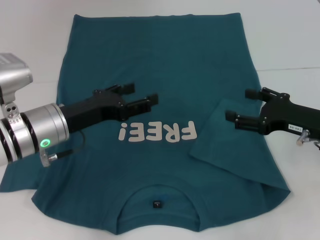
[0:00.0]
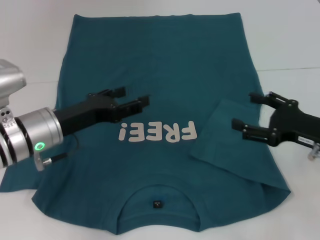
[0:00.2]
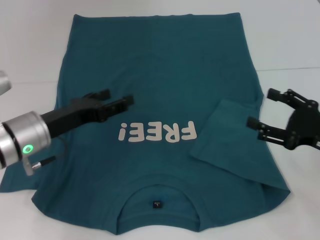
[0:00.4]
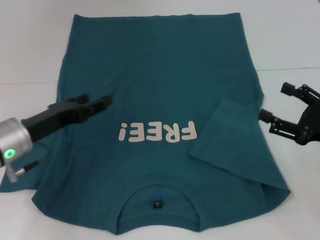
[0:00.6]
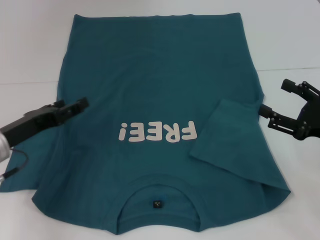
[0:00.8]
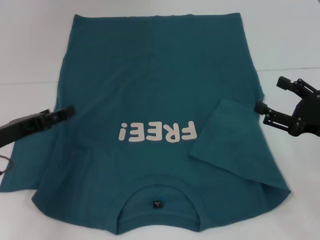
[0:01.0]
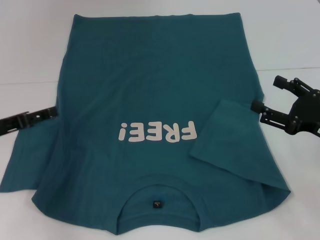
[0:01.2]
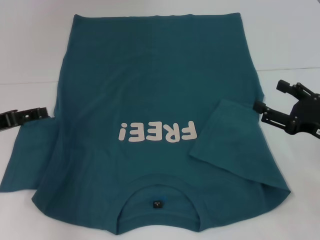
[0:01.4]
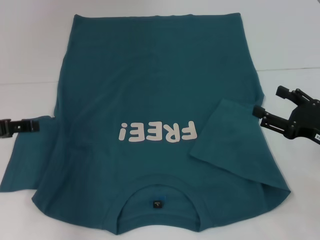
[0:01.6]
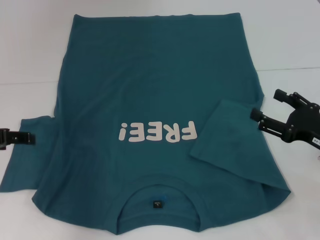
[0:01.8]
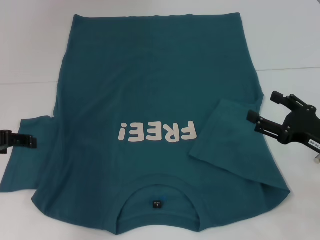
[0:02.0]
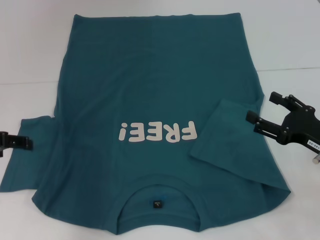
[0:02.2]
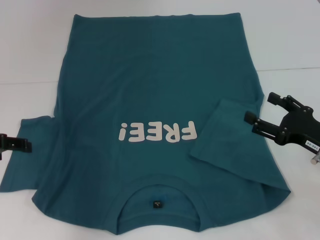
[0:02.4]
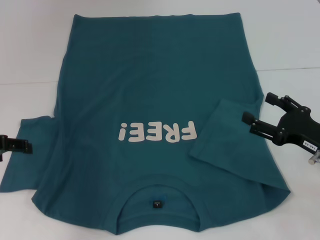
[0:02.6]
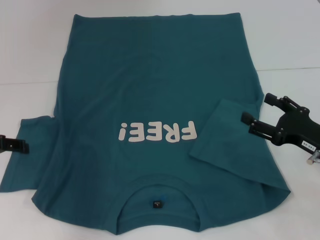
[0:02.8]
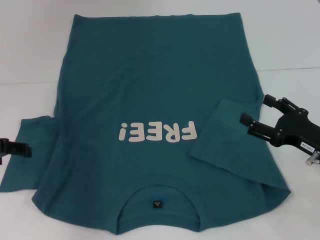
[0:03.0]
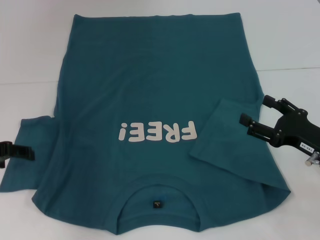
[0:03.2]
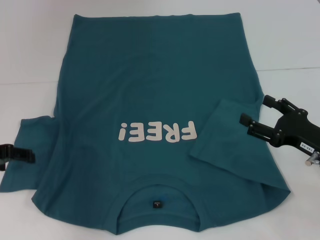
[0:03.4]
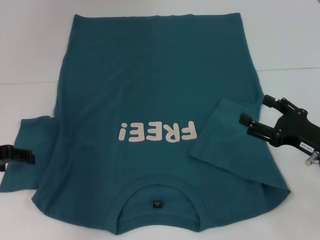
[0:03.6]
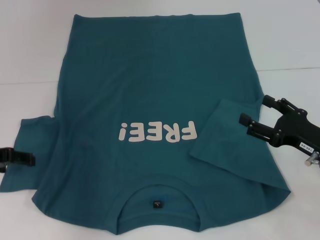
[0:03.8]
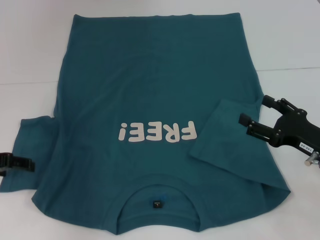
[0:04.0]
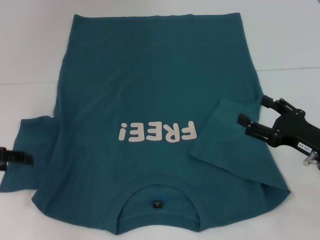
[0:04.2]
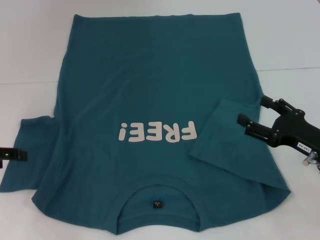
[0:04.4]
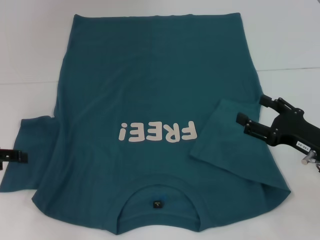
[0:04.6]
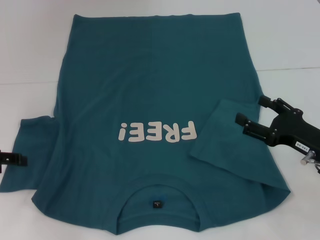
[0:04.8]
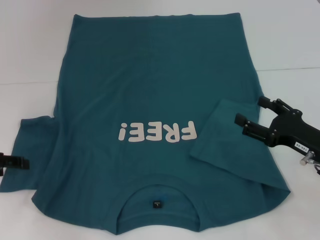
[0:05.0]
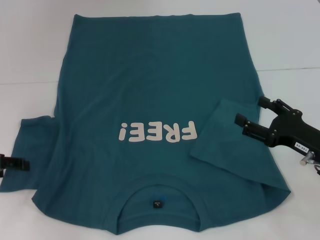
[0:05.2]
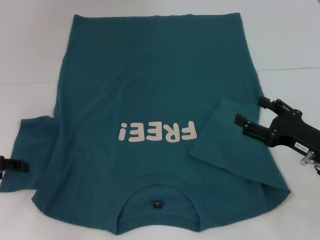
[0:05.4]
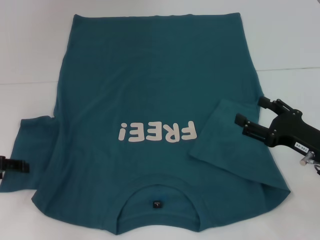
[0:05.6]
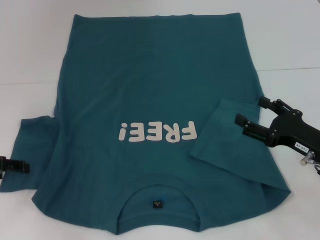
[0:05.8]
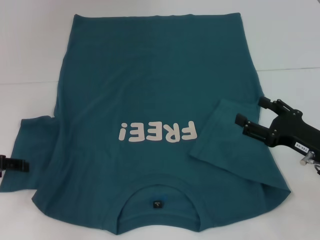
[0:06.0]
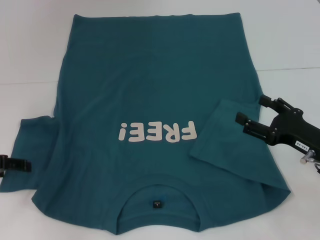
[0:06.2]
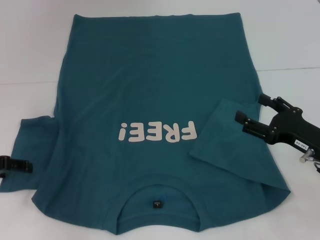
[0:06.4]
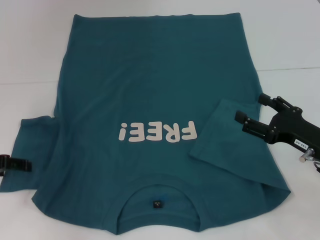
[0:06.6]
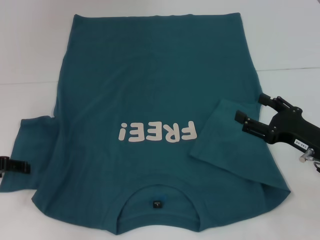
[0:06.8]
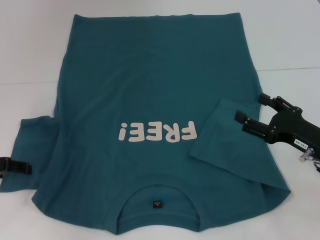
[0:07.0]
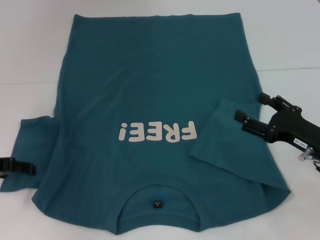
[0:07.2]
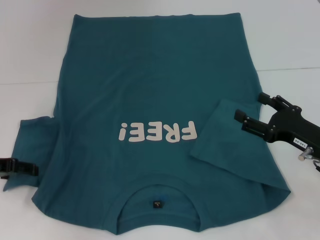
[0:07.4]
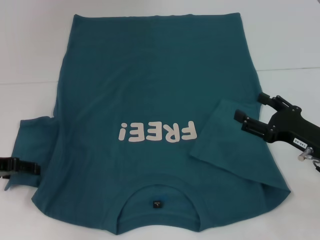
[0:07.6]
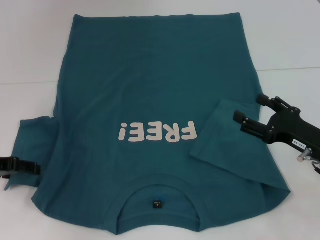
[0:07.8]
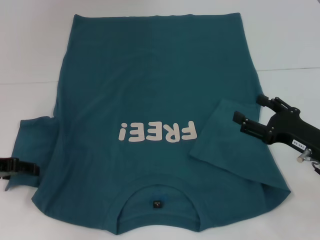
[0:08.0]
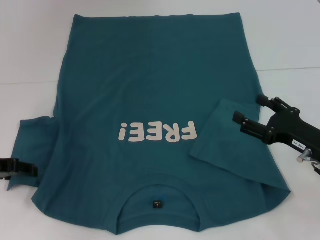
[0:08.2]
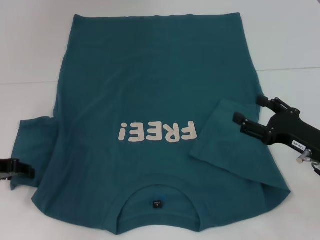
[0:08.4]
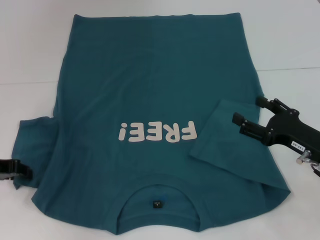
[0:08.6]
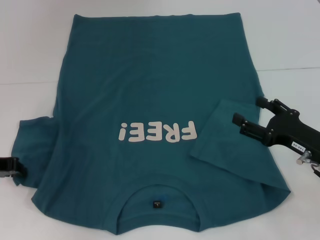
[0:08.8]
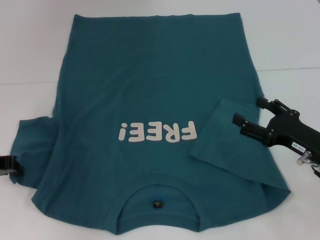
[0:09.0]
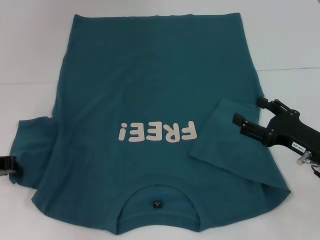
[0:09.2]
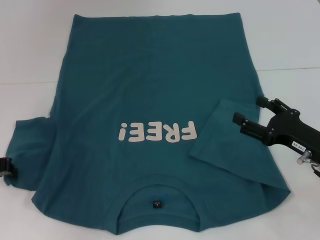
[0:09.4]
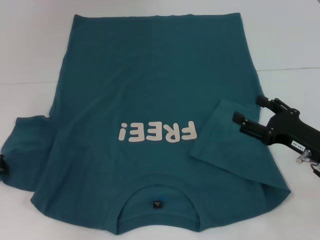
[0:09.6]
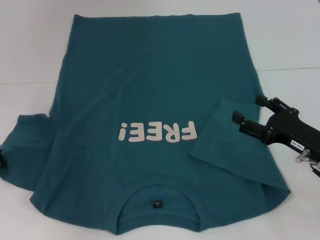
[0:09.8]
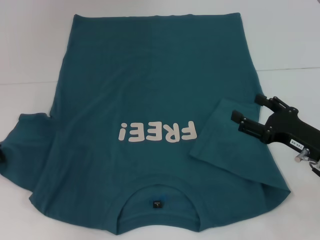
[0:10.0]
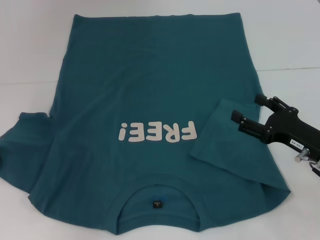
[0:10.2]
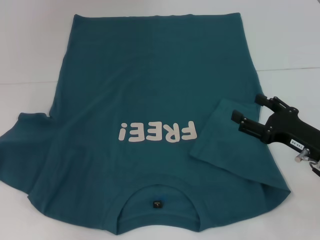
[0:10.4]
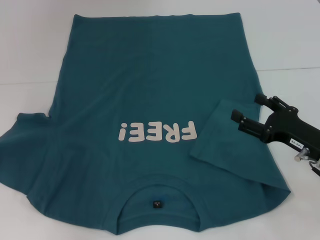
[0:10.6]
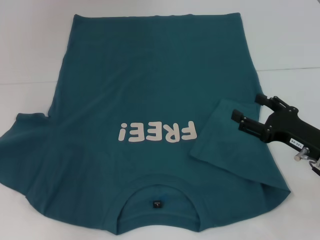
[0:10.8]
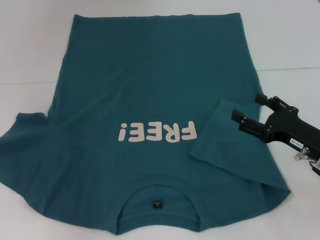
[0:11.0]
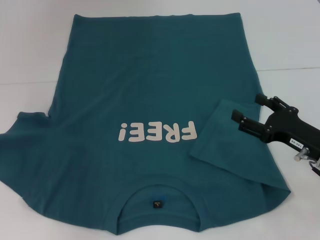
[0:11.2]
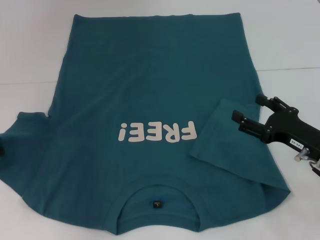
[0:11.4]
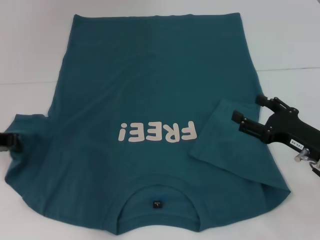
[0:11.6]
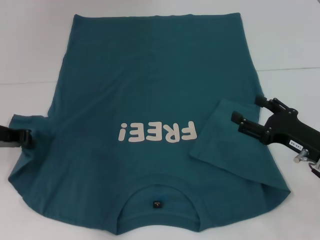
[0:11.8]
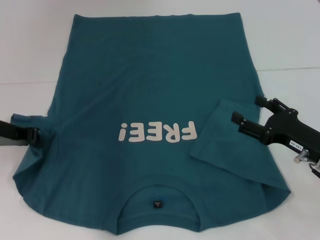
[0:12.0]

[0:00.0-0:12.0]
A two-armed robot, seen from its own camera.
0:00.0 to 0:01.6: The left gripper is displaced to the left by approximately 15 cm. The right gripper changes place by roughly 5 cm.
0:01.6 to 0:07.6: There are only small adjustments of the grippers.
0:07.6 to 0:09.0: The left gripper closes its fingers.
0:09.0 to 0:10.4: The grippers move only a little.
0:10.4 to 0:12.0: The left gripper shifts some 5 cm to the right.

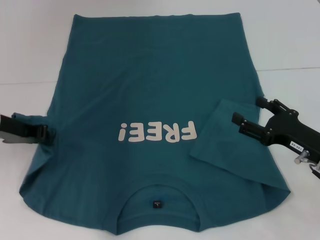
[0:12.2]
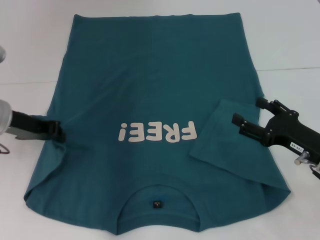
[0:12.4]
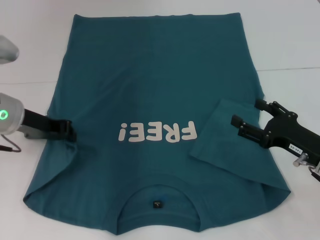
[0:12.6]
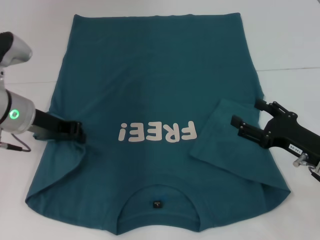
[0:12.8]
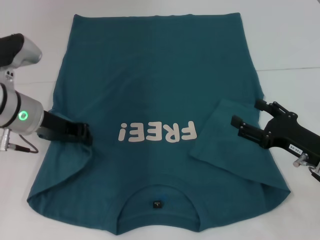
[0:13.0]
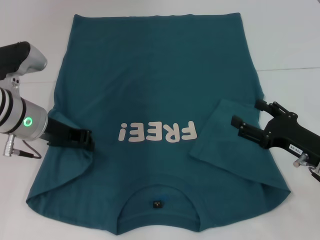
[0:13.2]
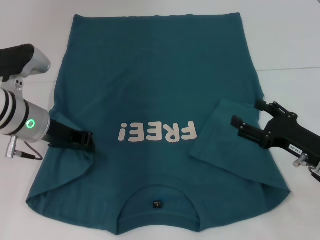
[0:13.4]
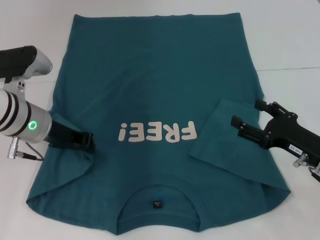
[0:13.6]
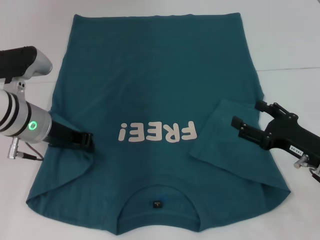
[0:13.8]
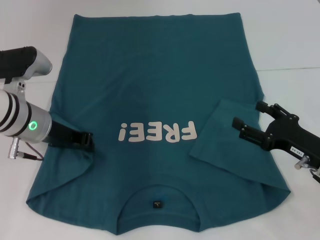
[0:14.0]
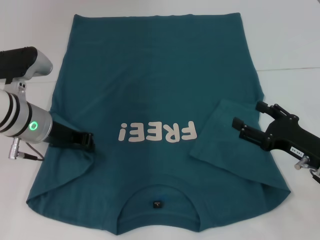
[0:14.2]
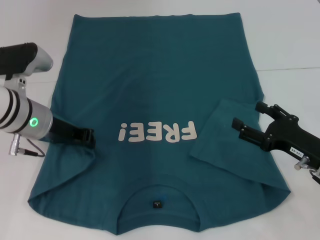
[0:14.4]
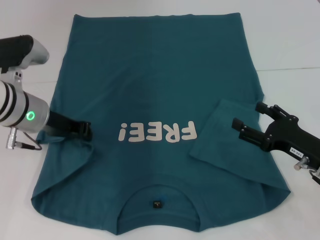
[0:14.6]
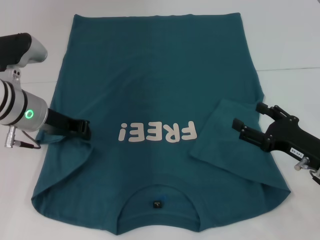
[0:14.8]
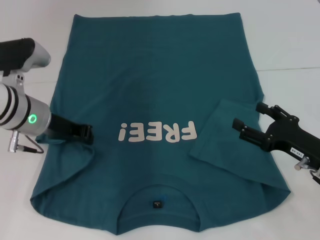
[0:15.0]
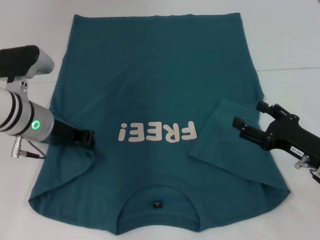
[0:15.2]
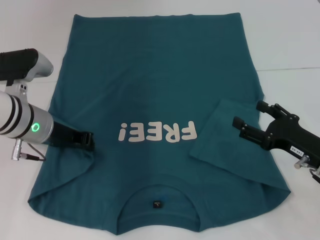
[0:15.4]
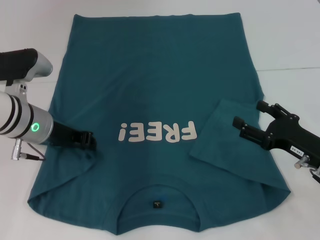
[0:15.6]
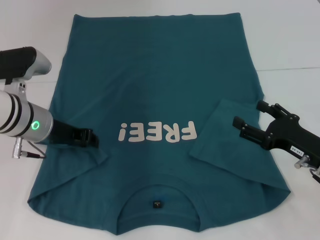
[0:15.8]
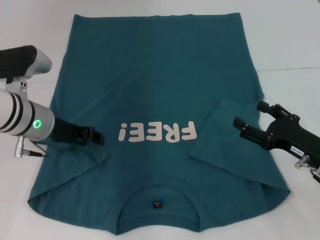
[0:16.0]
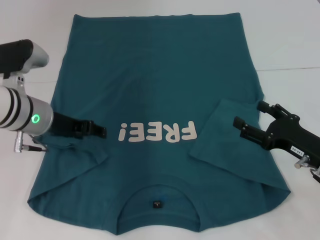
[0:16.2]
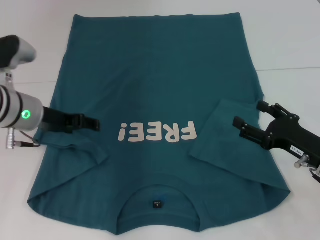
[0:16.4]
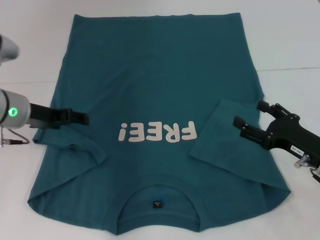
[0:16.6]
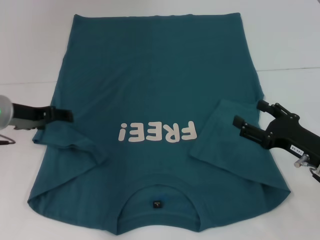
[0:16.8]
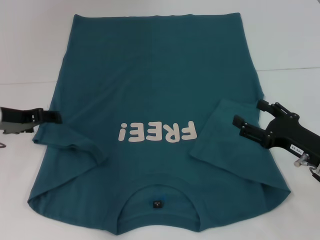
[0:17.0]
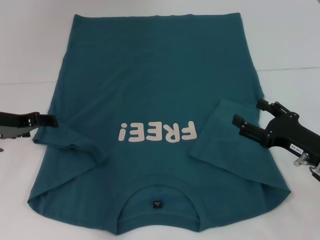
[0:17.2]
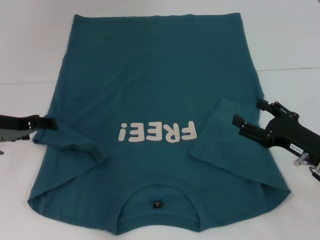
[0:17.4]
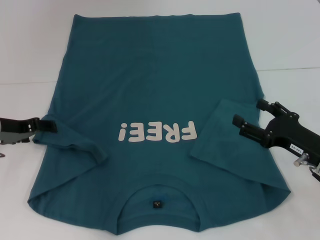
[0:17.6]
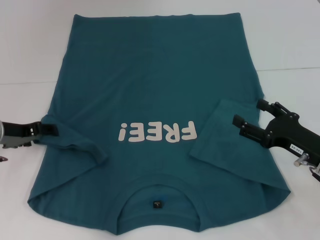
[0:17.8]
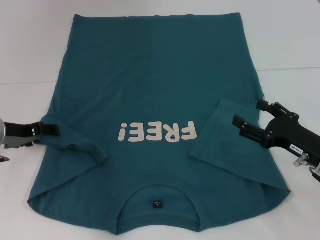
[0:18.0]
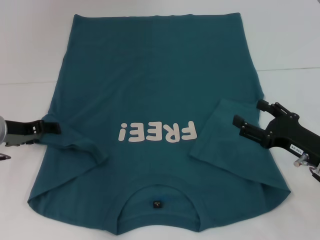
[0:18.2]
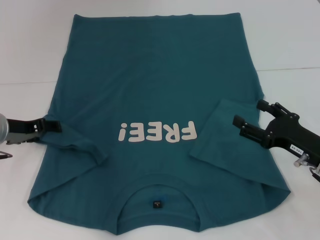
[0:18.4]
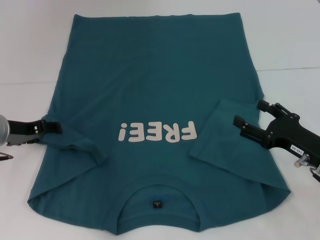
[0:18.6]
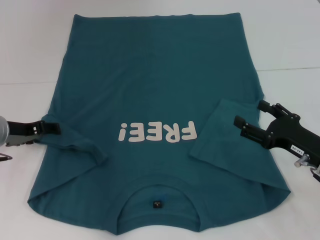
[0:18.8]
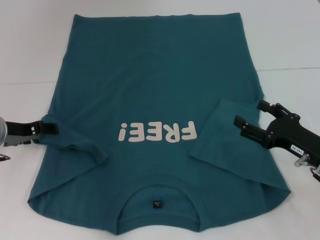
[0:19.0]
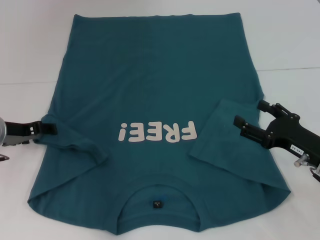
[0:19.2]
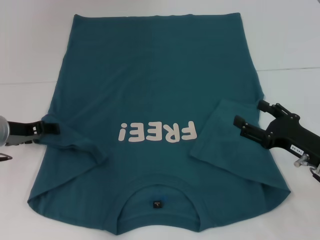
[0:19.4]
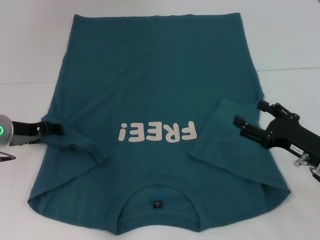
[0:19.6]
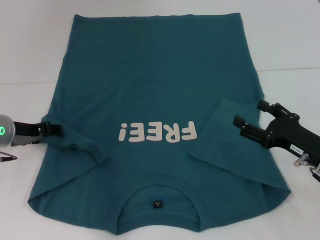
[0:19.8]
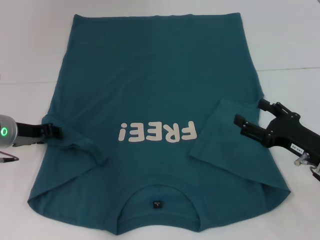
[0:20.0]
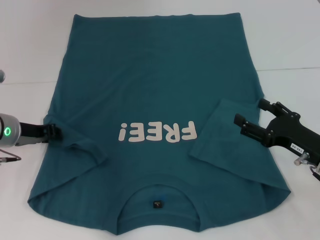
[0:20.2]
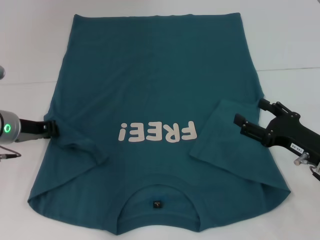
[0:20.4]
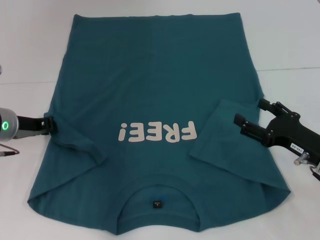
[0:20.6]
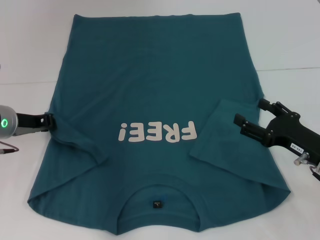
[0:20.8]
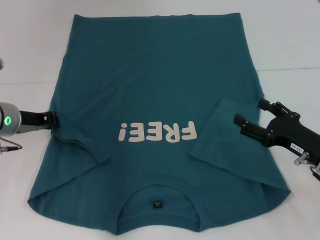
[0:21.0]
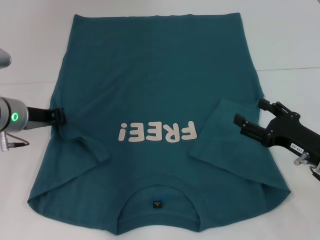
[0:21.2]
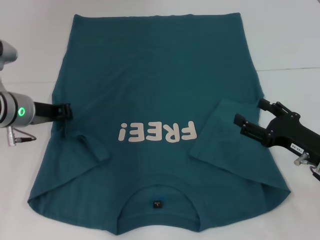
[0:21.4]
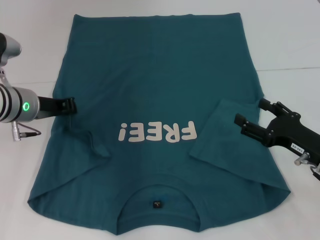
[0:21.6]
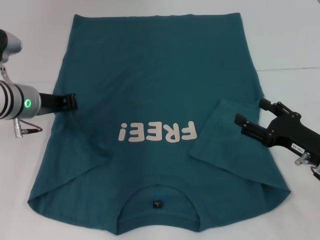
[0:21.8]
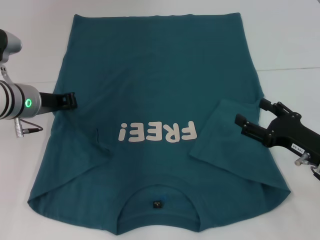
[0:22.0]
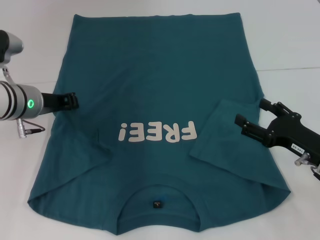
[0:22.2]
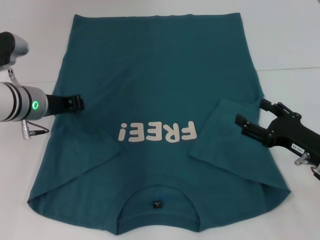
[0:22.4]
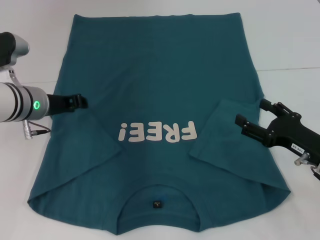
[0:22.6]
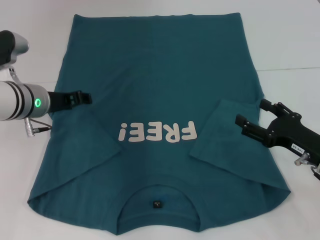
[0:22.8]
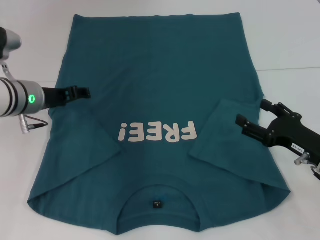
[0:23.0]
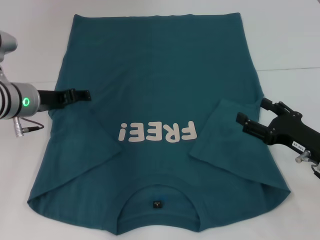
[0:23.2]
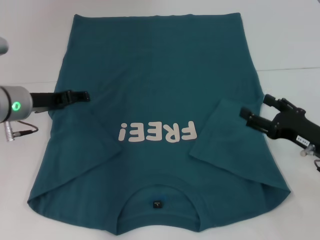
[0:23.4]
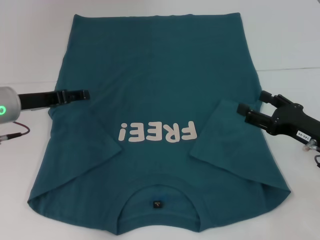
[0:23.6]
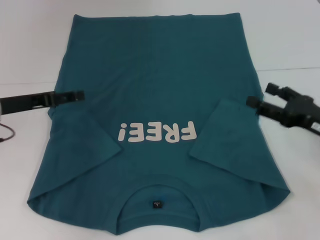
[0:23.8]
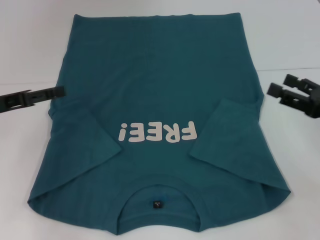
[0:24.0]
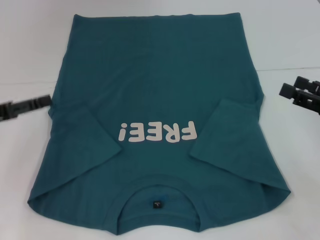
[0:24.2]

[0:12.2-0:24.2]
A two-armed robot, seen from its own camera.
Step, 0:12.2 to 0:22.4: Fold the bottom left sleeve with your left hand.
0:12.2 to 0:13.8: The left gripper goes some 5 cm to the right.
0:13.8 to 0:15.2: The grippers stay close to where they were, moving slightly.
0:15.2 to 0:16.6: The left gripper opens.
0:16.6 to 0:18.2: The left gripper ends up some 5 cm from where it was.
0:18.2 to 0:19.8: Both grippers stay about where they are.
0:19.8 to 0:21.2: The left gripper closes up.
0:21.2 to 0:22.6: The grippers stay close to where they were, moving slightly.
0:22.6 to 0:24.2: The left gripper goes some 15 cm to the left and backward, and opens up. The right gripper shifts about 10 cm upward and to the right.
